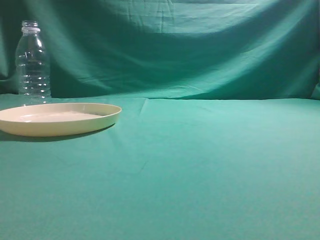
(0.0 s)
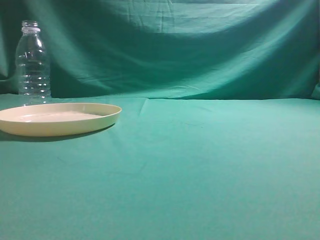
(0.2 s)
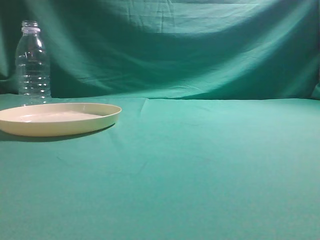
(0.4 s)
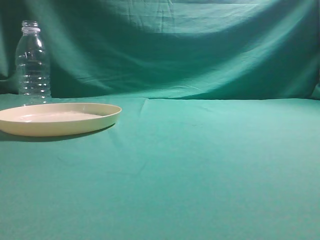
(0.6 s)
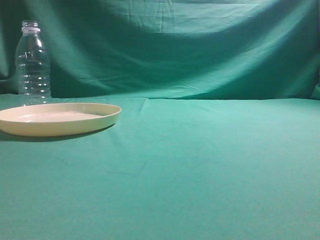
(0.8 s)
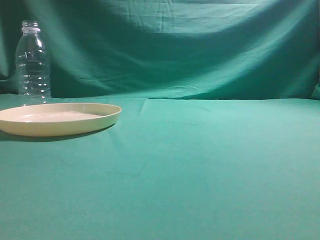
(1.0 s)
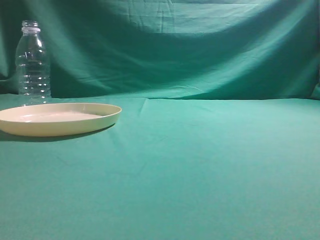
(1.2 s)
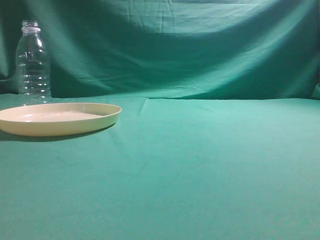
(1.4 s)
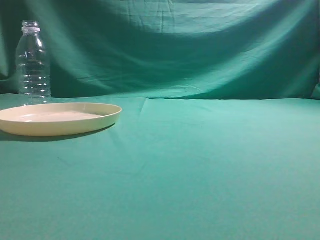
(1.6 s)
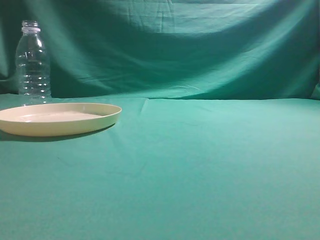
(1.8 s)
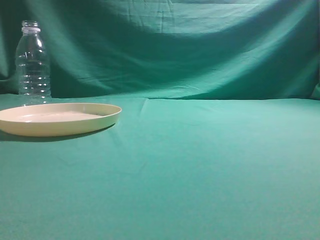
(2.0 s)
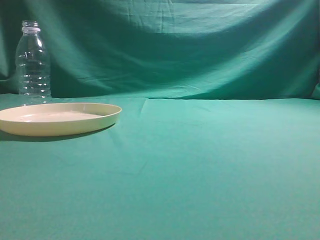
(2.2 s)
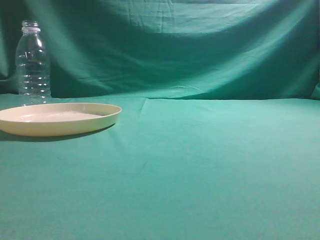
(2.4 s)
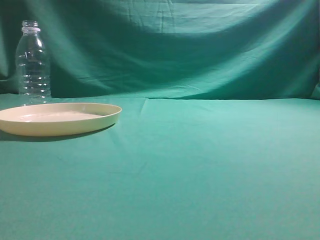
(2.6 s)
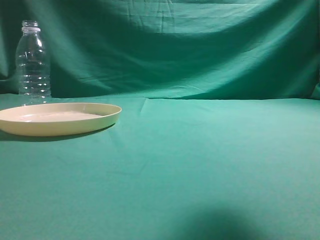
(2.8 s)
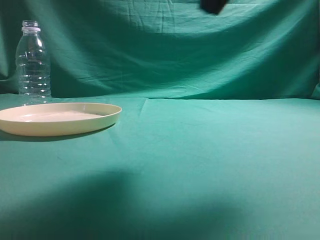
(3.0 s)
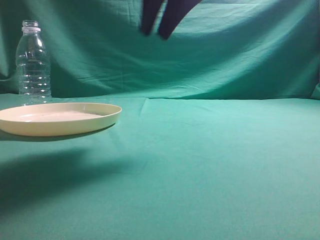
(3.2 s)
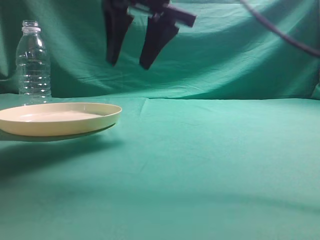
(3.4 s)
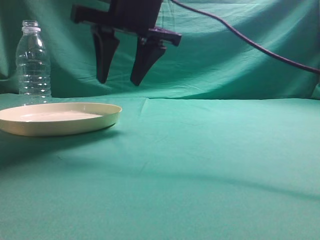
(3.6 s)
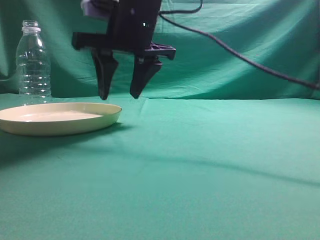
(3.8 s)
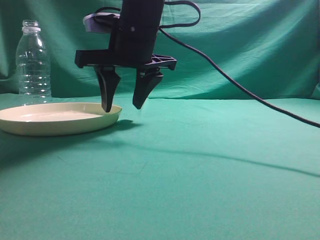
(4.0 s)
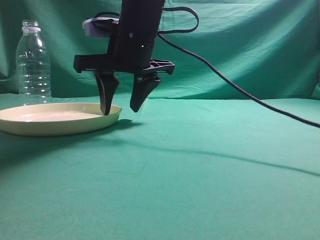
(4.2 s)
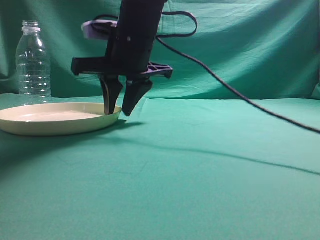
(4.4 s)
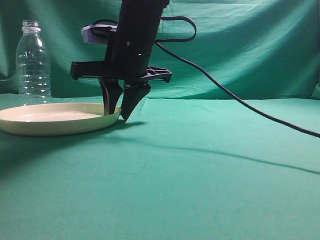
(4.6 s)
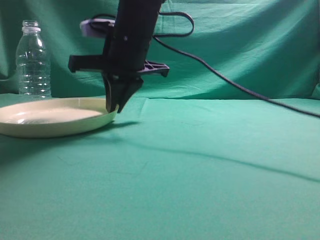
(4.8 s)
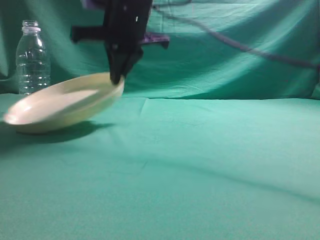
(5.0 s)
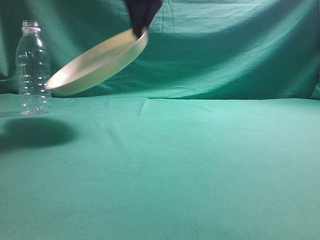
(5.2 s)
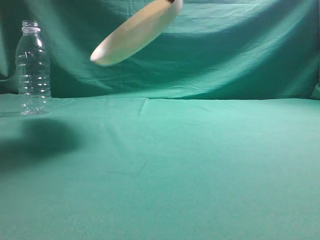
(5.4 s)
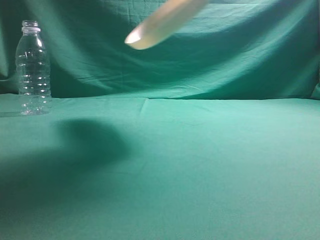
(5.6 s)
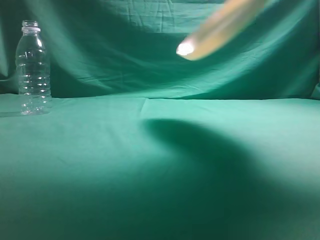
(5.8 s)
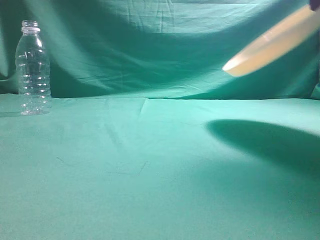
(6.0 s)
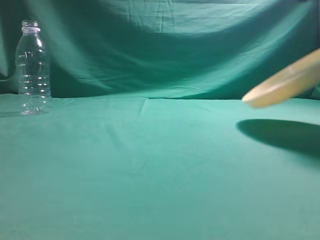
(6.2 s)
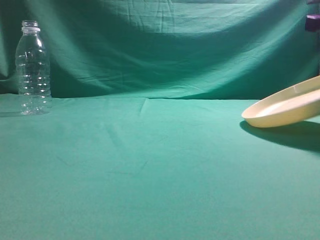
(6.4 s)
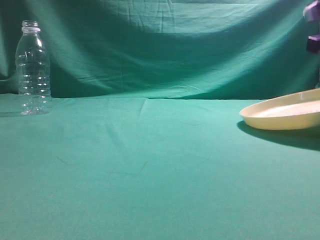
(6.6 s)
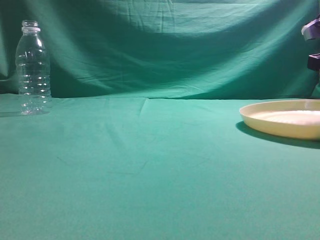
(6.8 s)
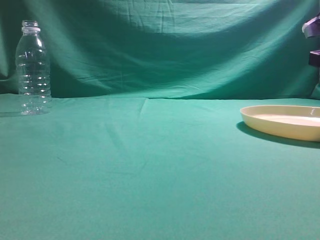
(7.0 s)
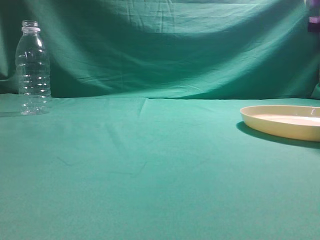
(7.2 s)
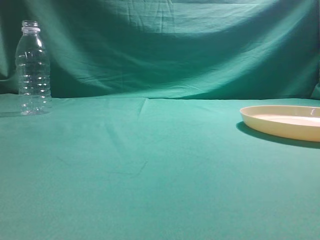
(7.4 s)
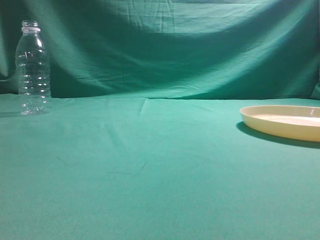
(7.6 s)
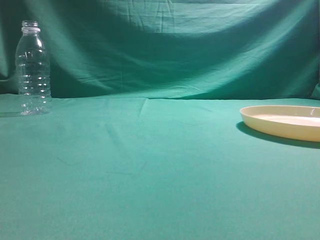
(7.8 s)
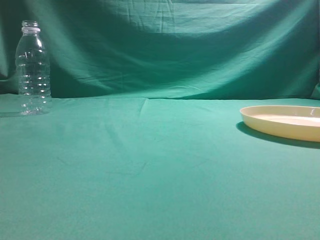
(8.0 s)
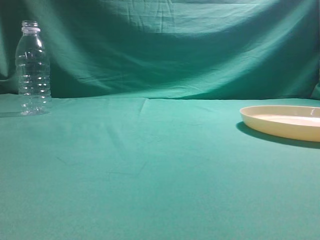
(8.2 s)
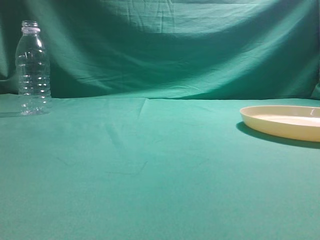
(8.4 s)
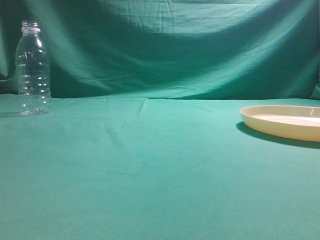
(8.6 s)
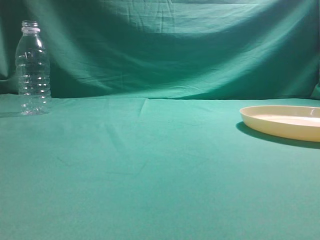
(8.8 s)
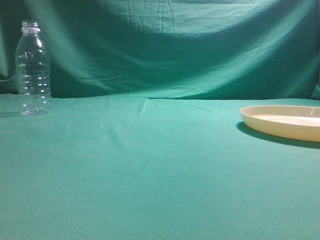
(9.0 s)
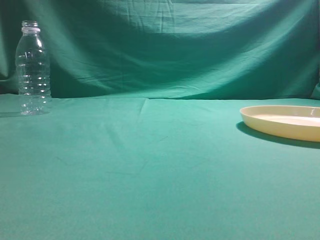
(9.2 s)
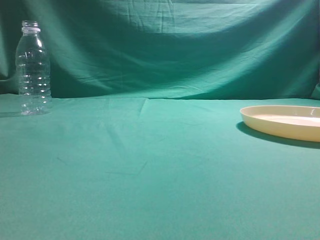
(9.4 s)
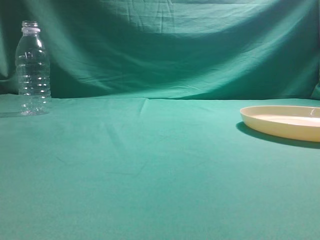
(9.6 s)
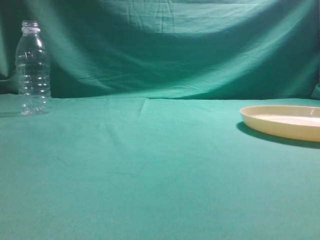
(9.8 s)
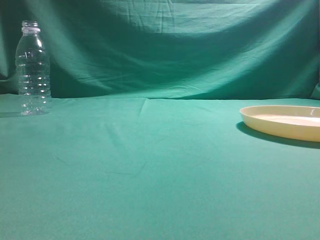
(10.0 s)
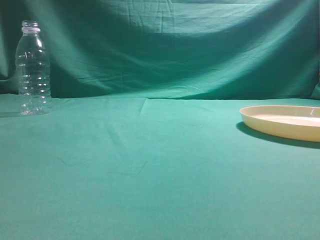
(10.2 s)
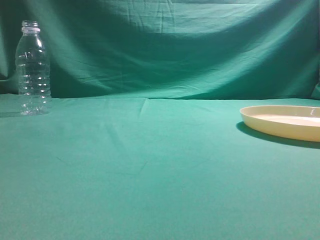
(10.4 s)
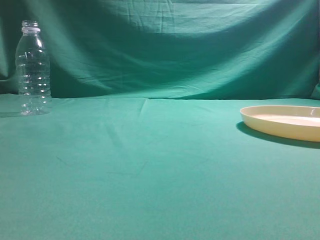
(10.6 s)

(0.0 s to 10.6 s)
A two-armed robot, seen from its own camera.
Step, 0.0 s - 5.0 s: Pick the container that can hold fruits.
Step, 5.2 s - 7.2 s: Move the picked object to the right side of the table.
1.6 s - 3.0 s: The right gripper travels forward and to the left by approximately 25 cm.
3.0 s - 4.6 s: The right gripper goes about 25 cm to the left, downward and forward, and opens.
4.6 s - 6.0 s: The right gripper is displaced to the right and upward by about 30 cm, and closes up.
6.0 s - 7.6 s: The right gripper moves to the right and backward, some 10 cm, moves about 15 cm downward and comes back, and opens, then closes again.
